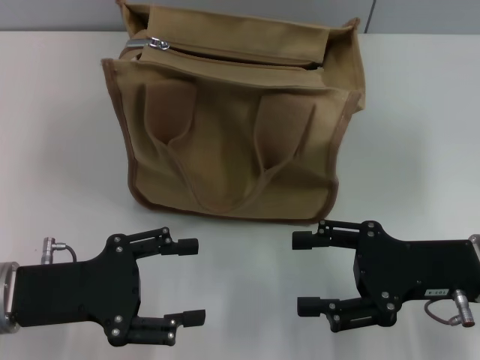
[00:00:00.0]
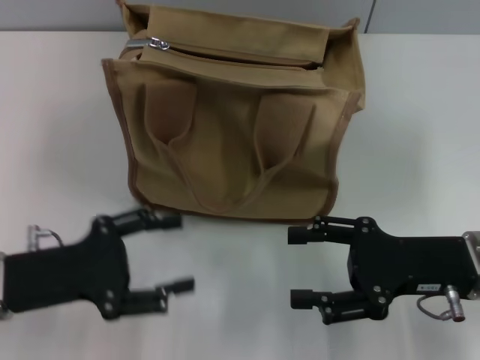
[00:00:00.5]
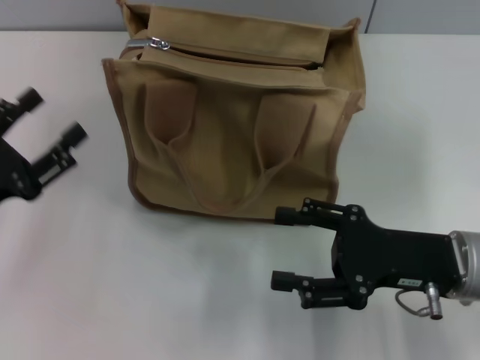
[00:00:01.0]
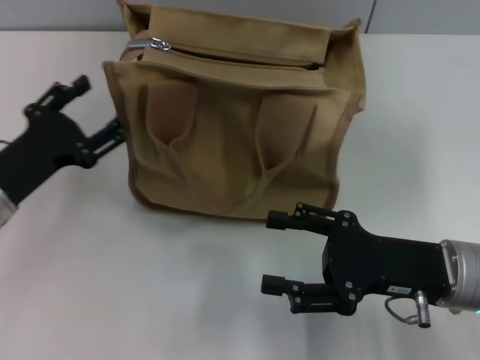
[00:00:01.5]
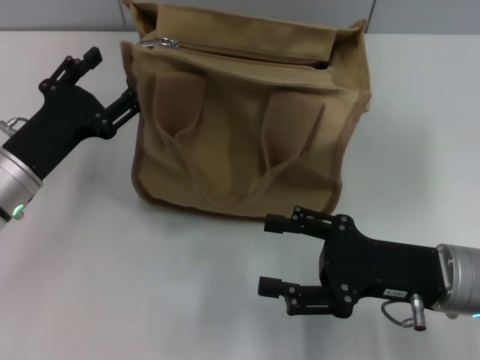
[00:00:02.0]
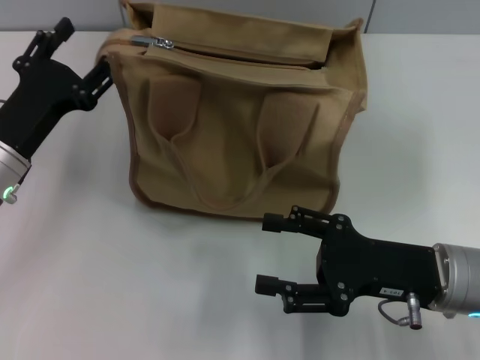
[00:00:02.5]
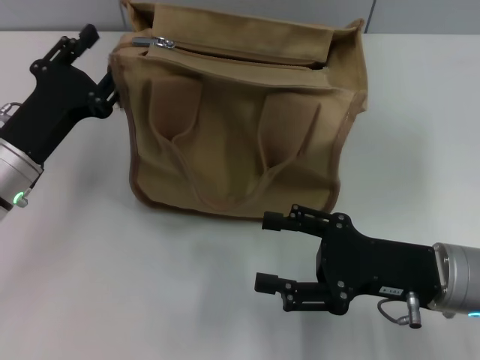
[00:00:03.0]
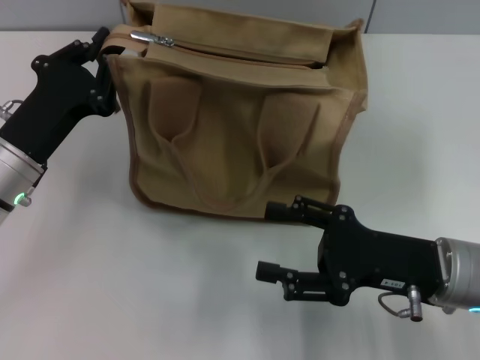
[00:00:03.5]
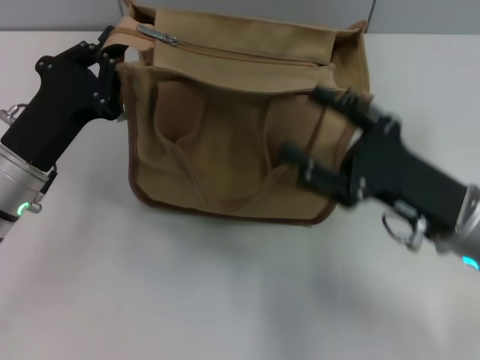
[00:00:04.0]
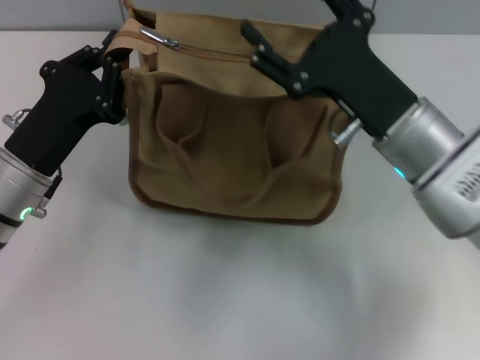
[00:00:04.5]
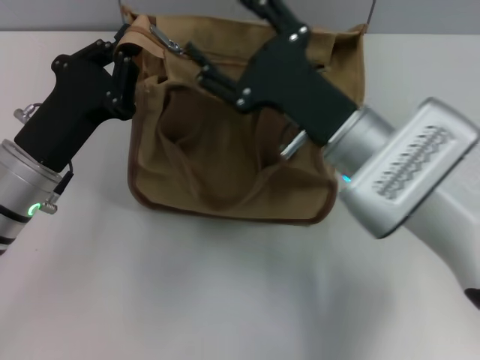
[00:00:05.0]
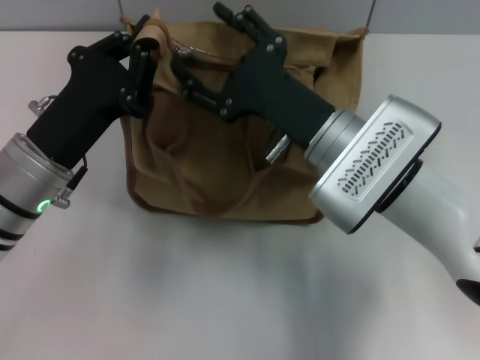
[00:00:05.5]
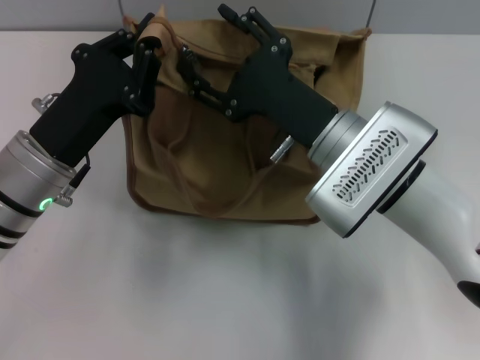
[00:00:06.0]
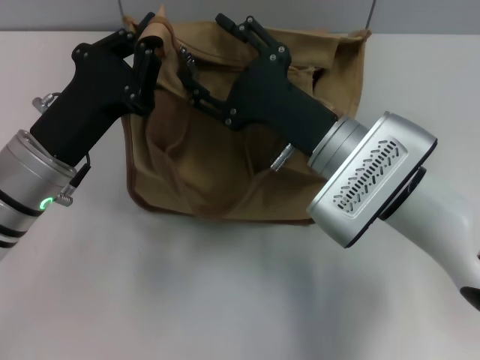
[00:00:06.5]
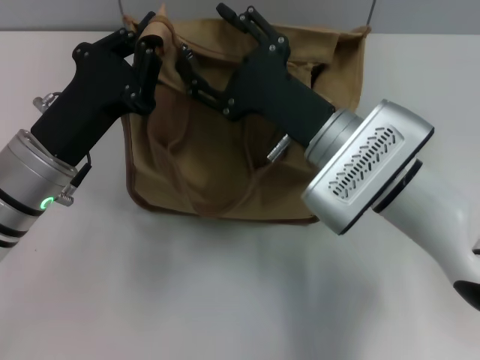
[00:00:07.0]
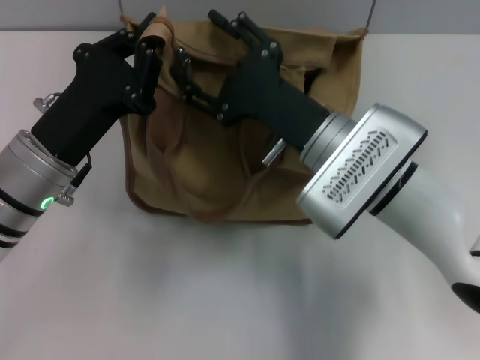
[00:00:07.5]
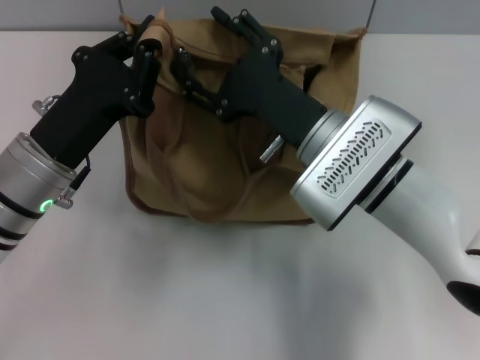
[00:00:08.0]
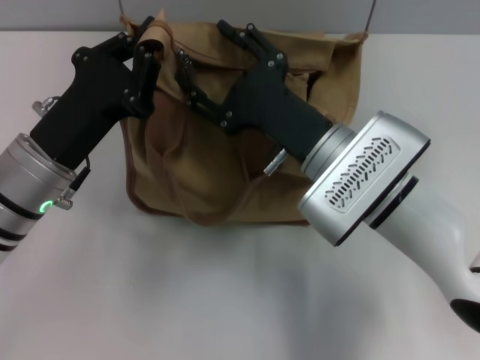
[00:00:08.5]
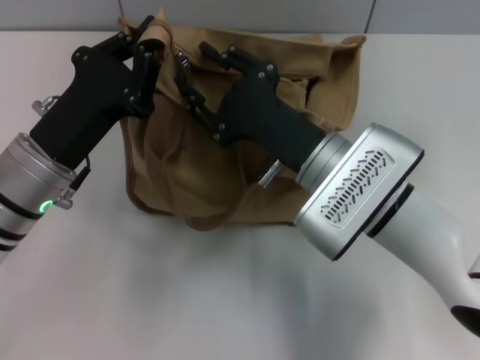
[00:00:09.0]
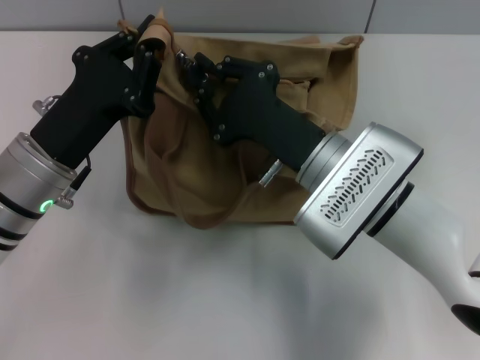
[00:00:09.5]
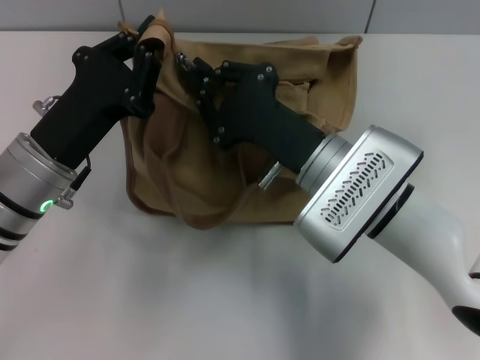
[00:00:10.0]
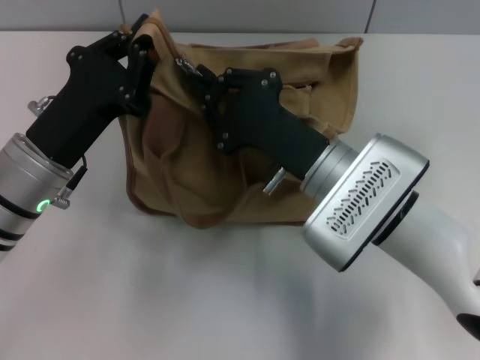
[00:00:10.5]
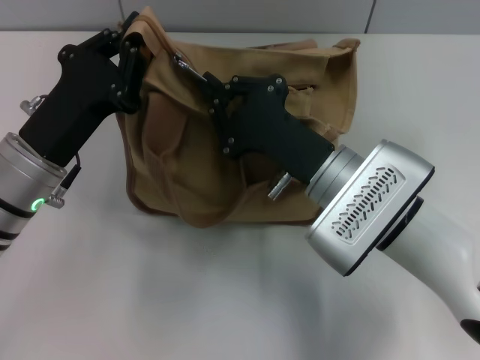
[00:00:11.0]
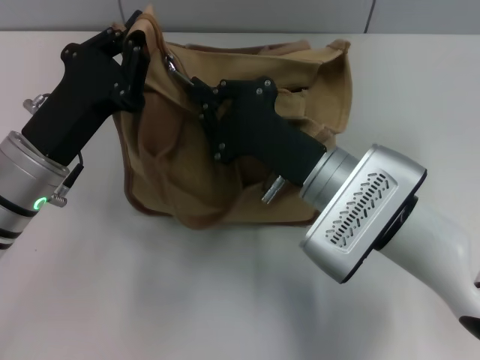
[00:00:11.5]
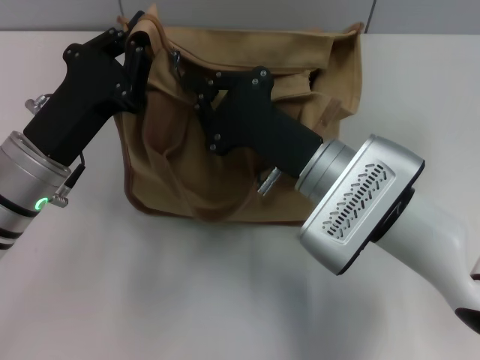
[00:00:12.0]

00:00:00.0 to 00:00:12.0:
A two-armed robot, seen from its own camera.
00:00:00.0 to 00:00:02.0: The left gripper goes approximately 10 cm forward.
00:00:02.0 to 00:00:04.0: The left gripper closes.
00:00:04.0 to 00:00:06.0: The right gripper shifts some 10 cm to the left and forward.
00:00:06.0 to 00:00:08.0: The two grippers keep their place.
00:00:08.0 to 00:00:10.0: The right gripper closes up.
00:00:10.0 to 00:00:12.0: Both grippers stay about where they are.

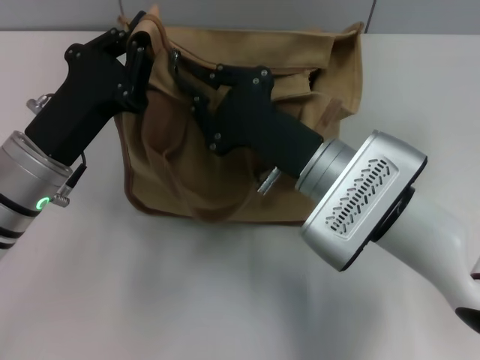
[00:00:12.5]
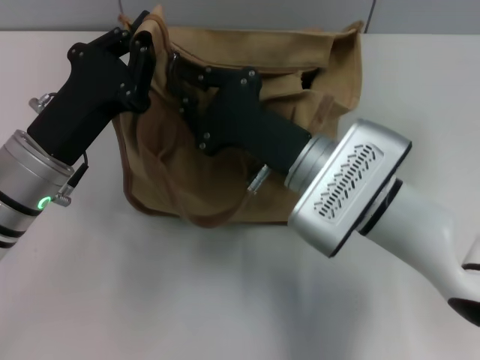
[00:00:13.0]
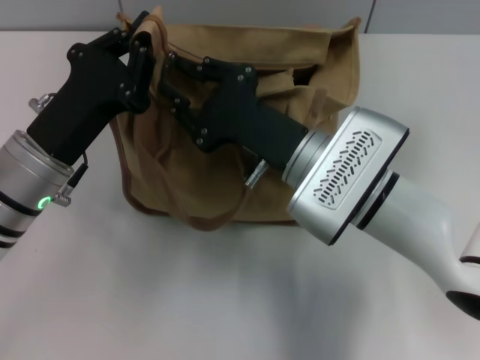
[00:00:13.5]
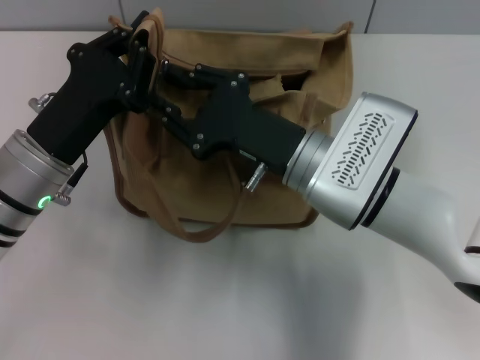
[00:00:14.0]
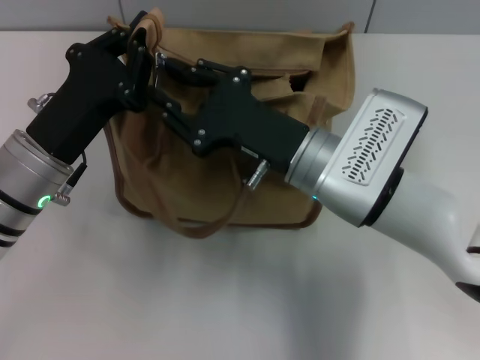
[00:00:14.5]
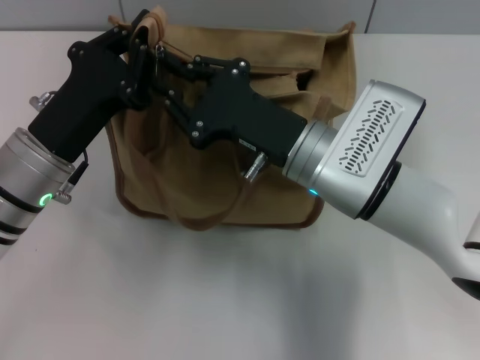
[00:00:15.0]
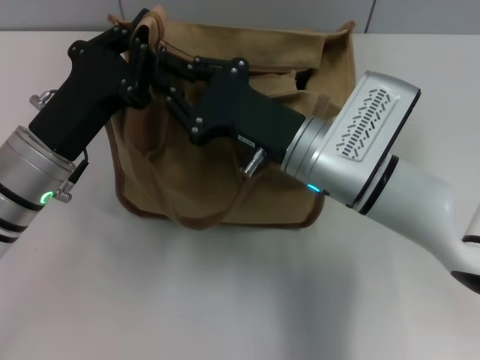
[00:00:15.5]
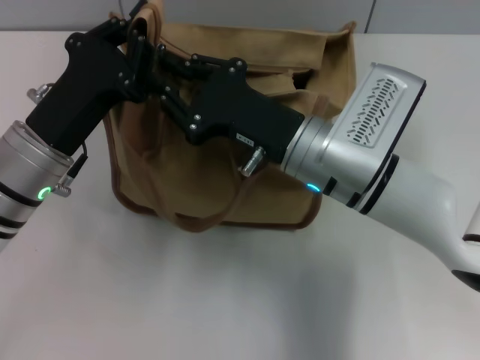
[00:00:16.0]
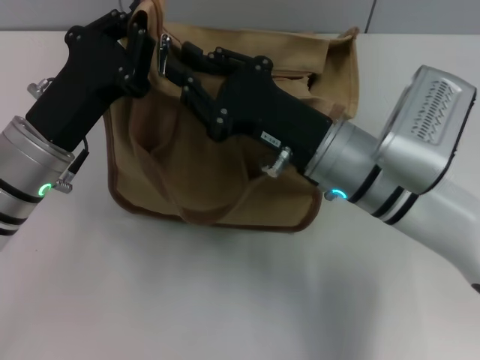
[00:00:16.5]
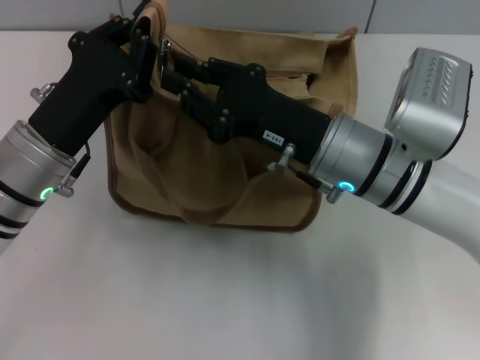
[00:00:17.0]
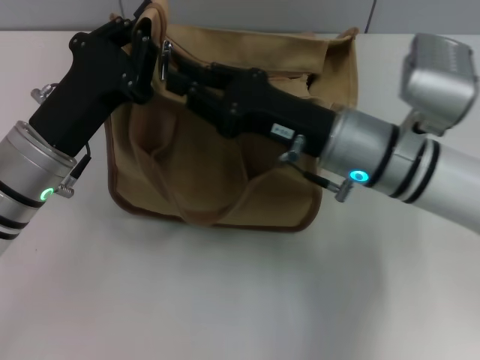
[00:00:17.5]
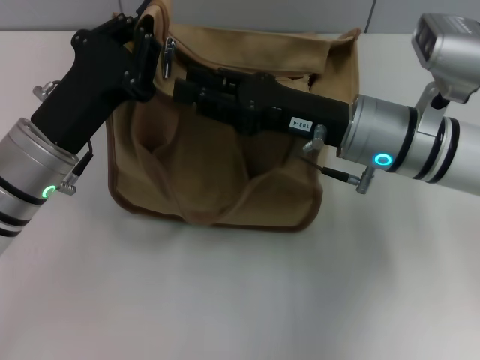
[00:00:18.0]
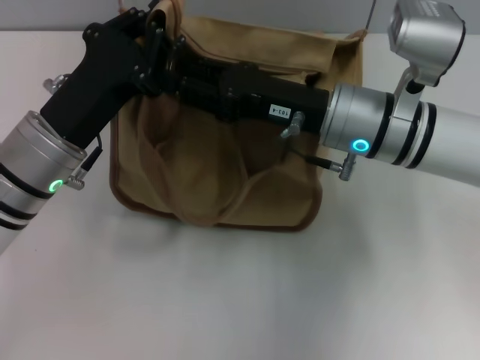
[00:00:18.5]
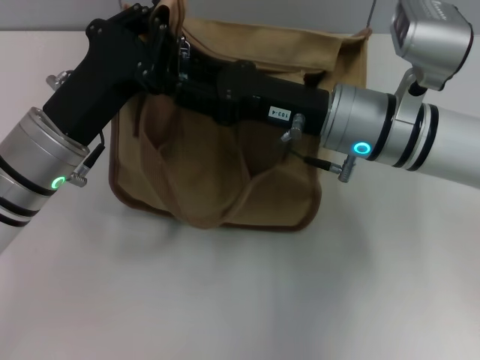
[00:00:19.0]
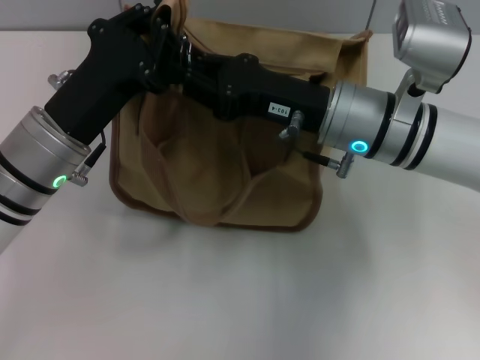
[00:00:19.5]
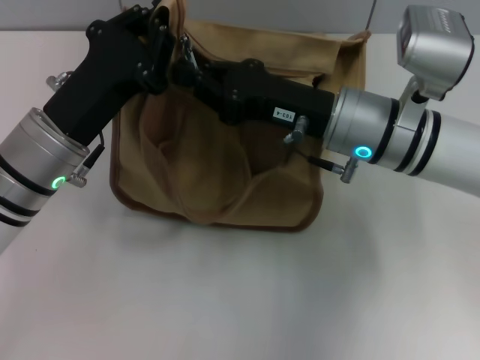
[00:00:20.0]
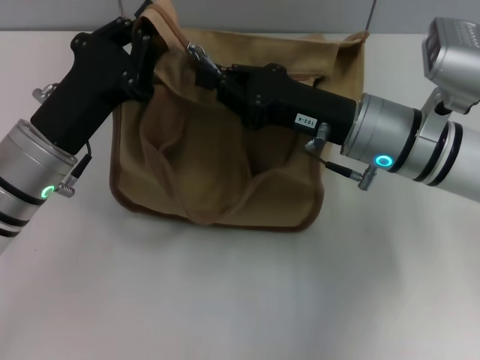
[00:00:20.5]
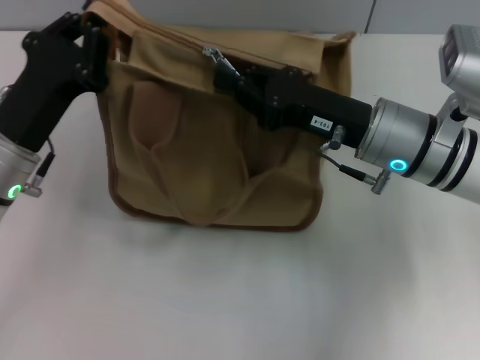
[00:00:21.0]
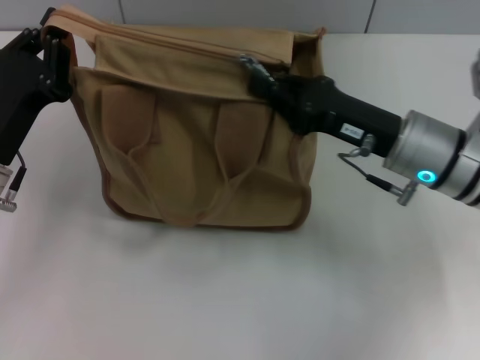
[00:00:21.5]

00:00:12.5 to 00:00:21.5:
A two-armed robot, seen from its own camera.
00:00:12.5 to 00:00:14.5: The right gripper opens up.
00:00:19.5 to 00:00:21.5: The left gripper goes approximately 5 cm to the left. Meanwhile the right gripper heads to the right, covering approximately 5 cm, and closes its fingers.

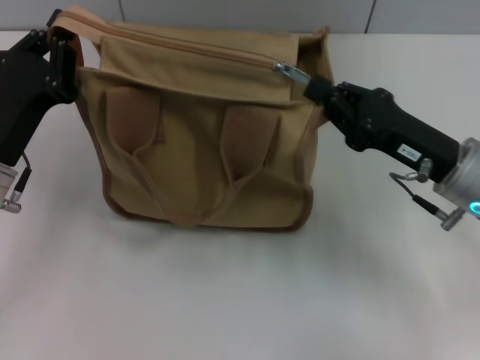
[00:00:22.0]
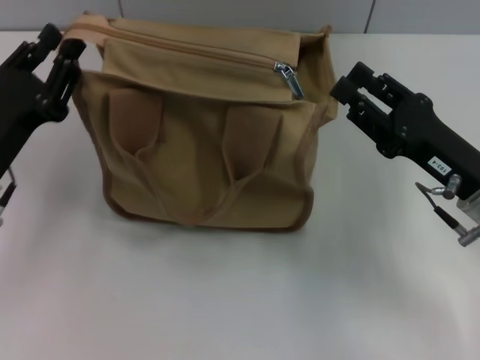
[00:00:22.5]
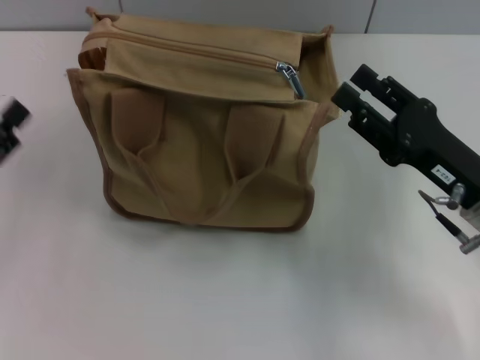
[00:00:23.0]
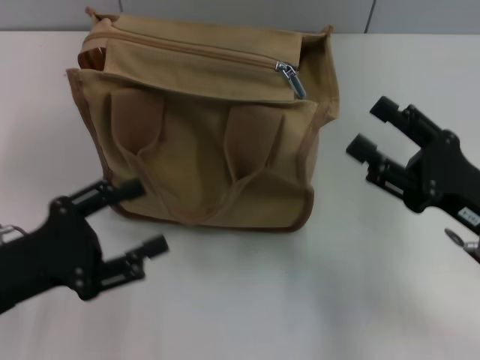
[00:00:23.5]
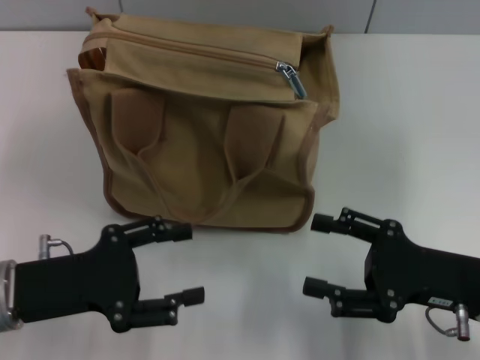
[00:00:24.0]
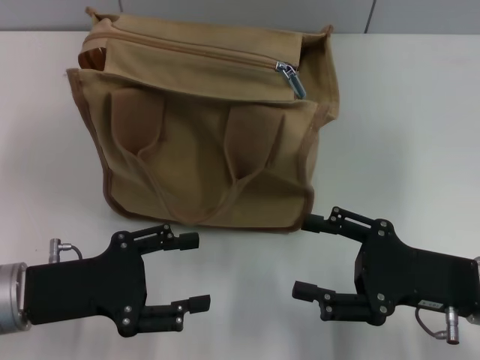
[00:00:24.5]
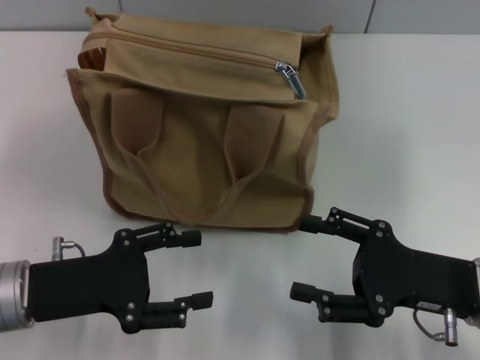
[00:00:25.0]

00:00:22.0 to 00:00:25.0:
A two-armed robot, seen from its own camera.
00:00:22.0 to 00:00:23.5: Both grippers travel together backward, roughly 5 cm. The right gripper opens its fingers. Meanwhile the left gripper goes to the left and returns, approximately 10 cm each way, and opens.
